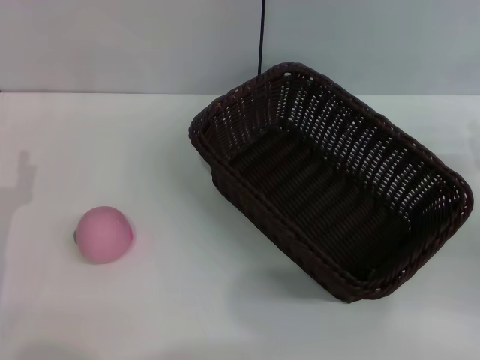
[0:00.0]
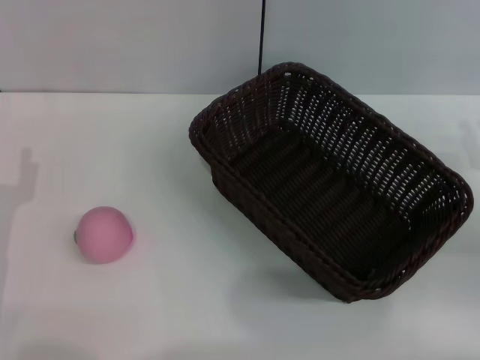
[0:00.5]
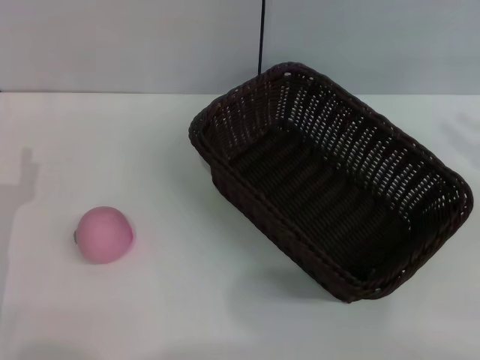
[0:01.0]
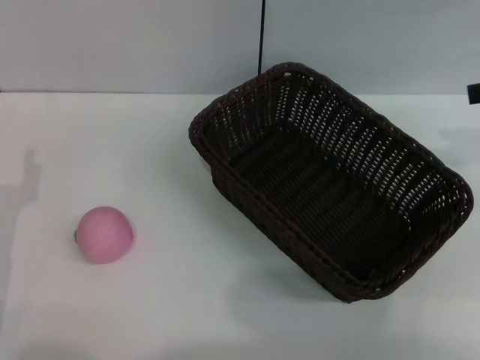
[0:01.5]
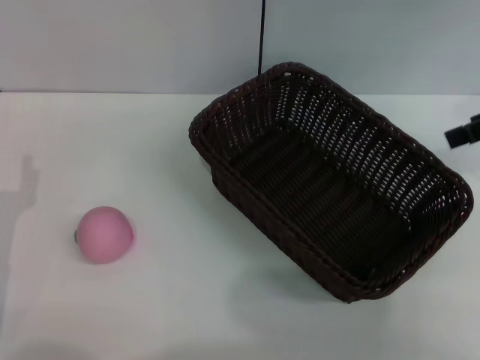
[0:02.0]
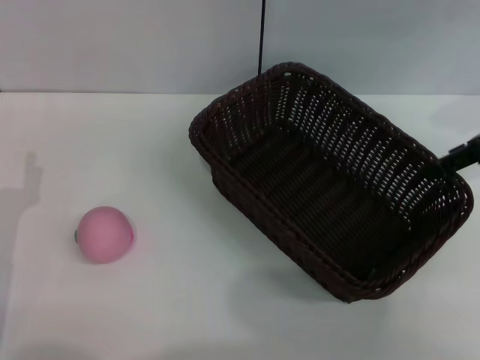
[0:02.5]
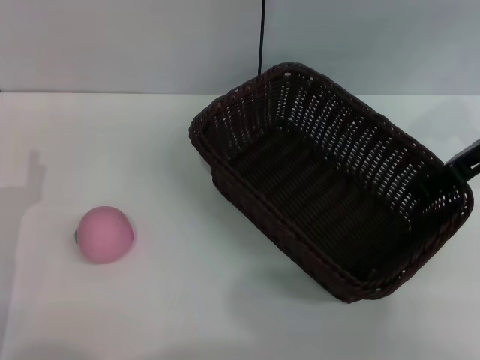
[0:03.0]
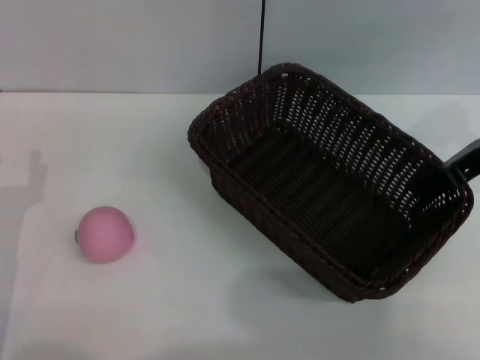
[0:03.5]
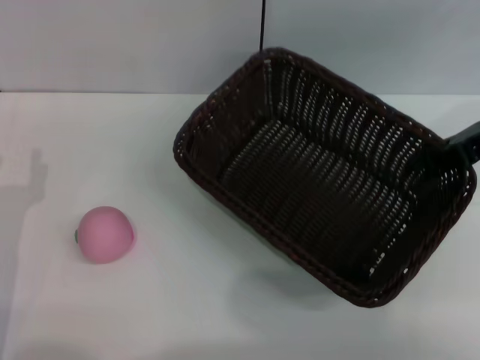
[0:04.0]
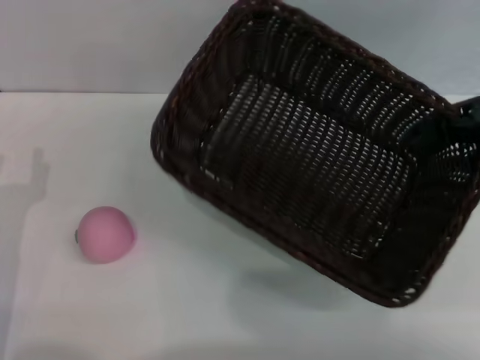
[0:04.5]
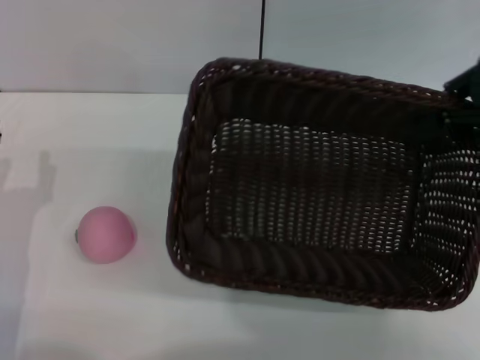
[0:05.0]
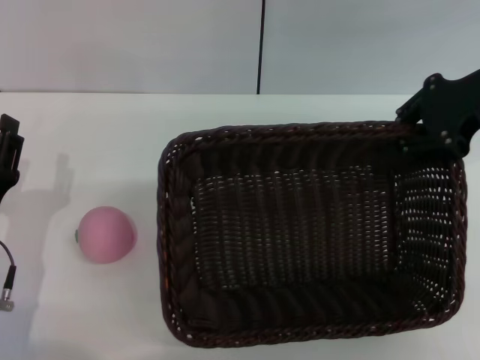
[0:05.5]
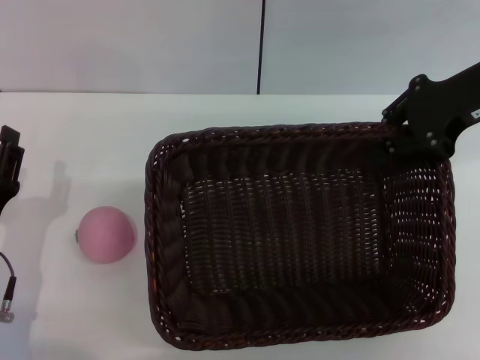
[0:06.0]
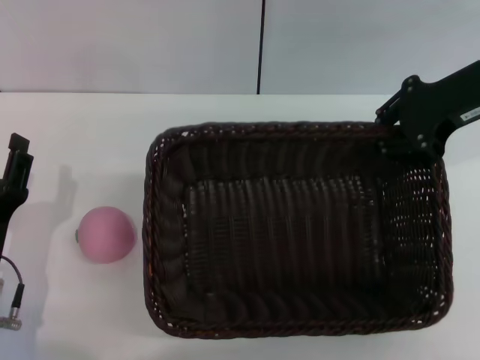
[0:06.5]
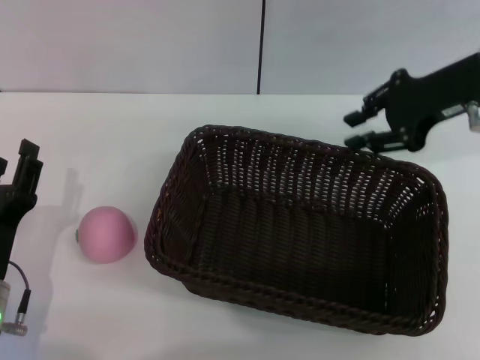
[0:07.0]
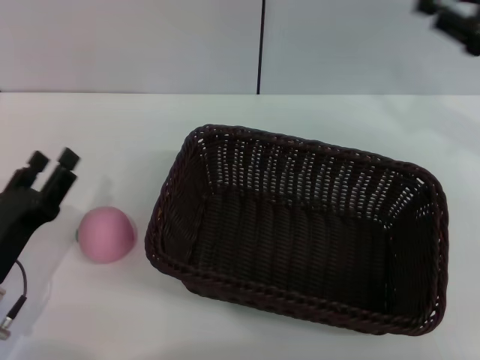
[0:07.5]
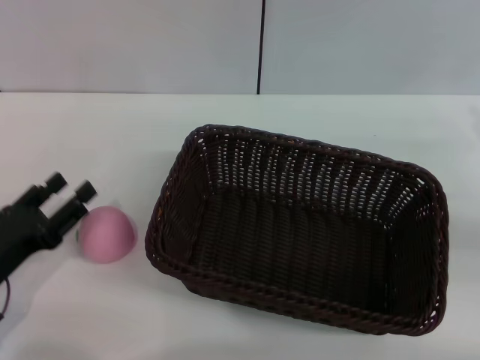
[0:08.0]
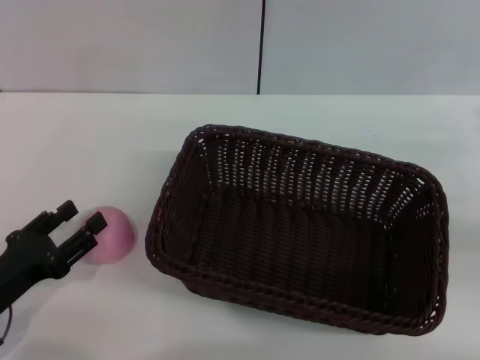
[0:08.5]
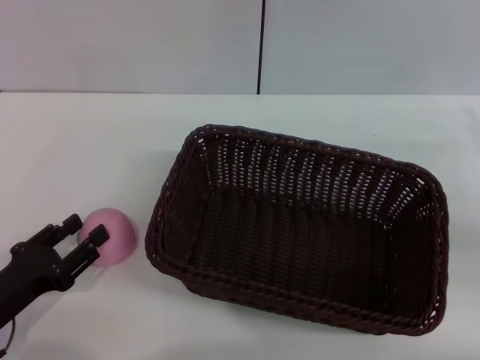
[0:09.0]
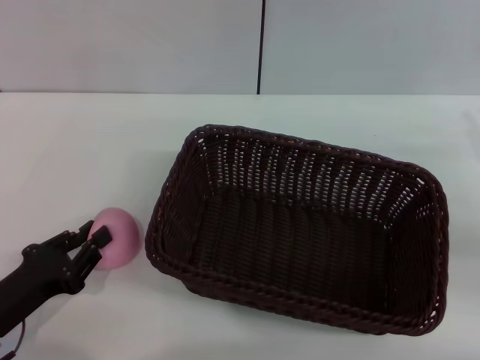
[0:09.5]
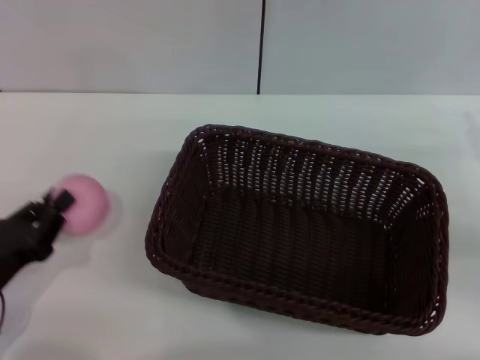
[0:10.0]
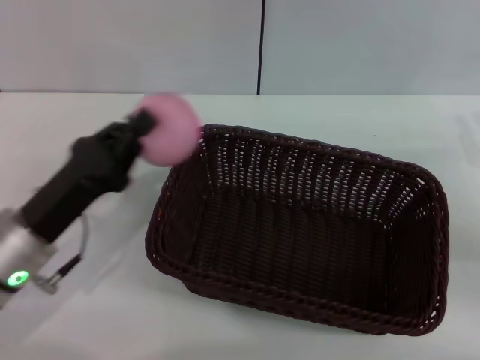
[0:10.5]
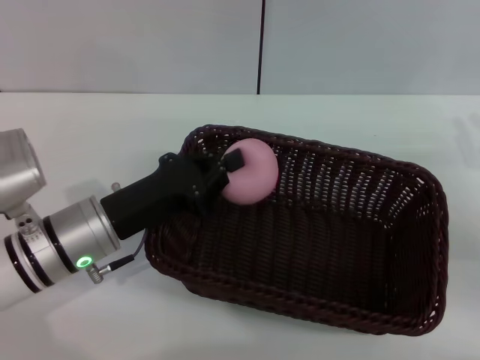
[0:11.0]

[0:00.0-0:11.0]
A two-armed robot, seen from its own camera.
Step, 0:00.0 to 0:04.0: Pick up the dark basket with the right gripper.
Step, 0:04.5 to 0:07.0: Place the dark basket in the center of view with the right gripper.
Step, 0:07.5 to 0:10.0: Pick up the peach with the left gripper.
0:00.0 to 0:02.0: The right gripper shifts some 20 cm upward and forward, and opens.
0:02.0 to 0:03.5: The right gripper shifts some 5 cm downward, and closes up.
0:03.5 to 0:05.5: The right gripper travels upward by approximately 5 cm.
0:05.5 to 0:07.5: The right gripper shifts approximately 5 cm to the right.
0:07.5 to 0:09.0: The right gripper shifts roughly 10 cm downward and backward.
0:09.0 to 0:11.0: The left gripper heads to the right and forward, covering roughly 15 cm, and closes its fingers.

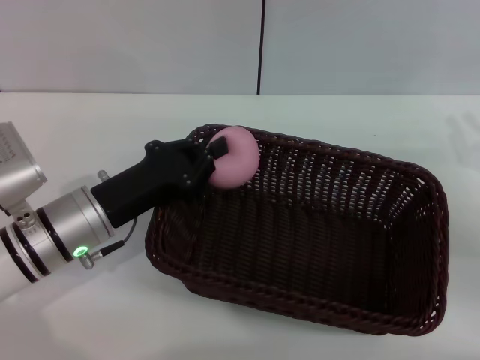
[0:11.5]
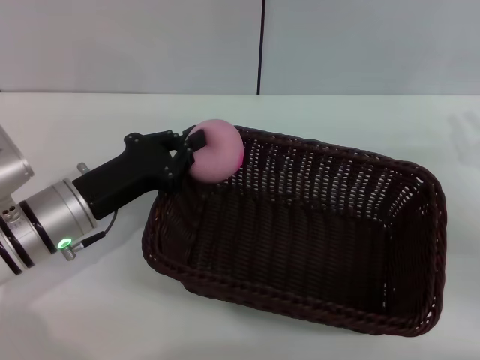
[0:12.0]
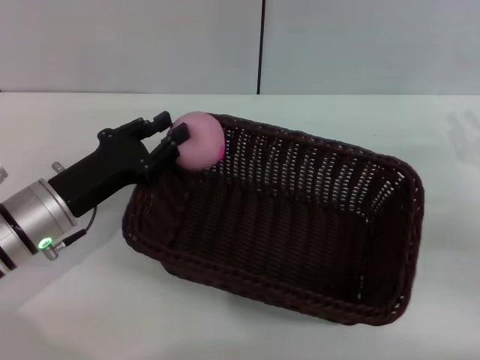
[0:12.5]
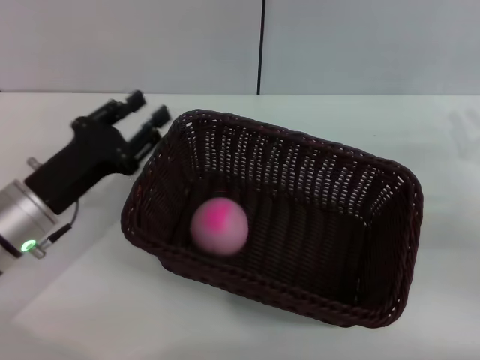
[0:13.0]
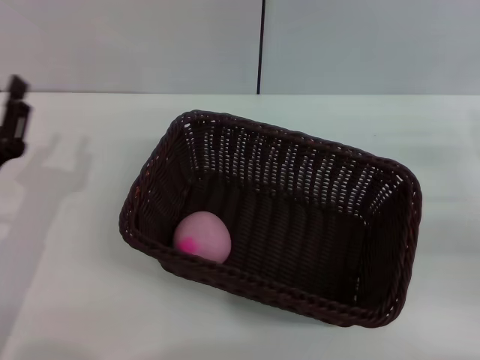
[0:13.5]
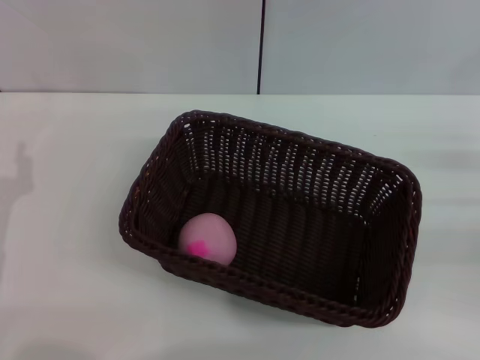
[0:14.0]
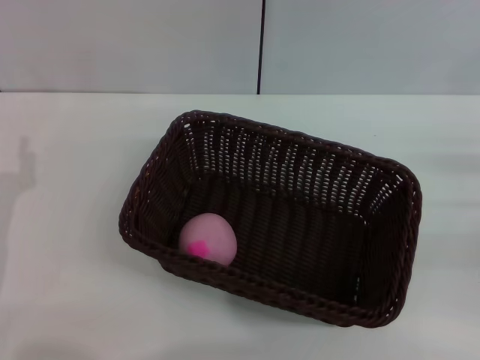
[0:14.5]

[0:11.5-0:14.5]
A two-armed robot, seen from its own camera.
Step, 0:11.5 to 0:13.0: Place the peach into the basket with the left gripper.
0:11.5 to 0:13.0: The left gripper opens its fingers.
0:13.0 to 0:14.5: The left gripper travels to the left and backward by roughly 10 cm.
